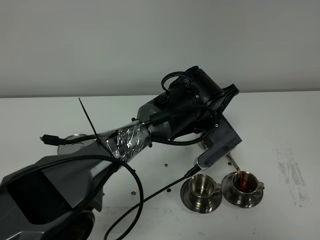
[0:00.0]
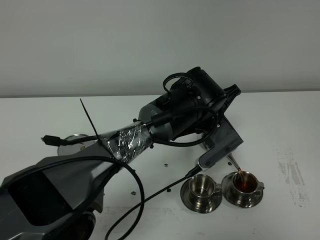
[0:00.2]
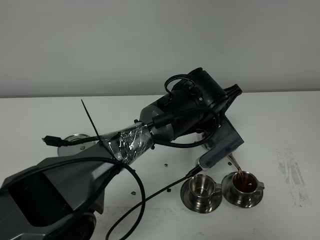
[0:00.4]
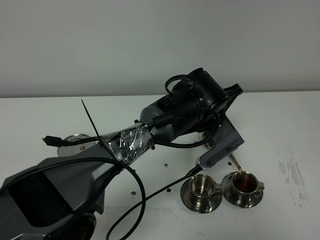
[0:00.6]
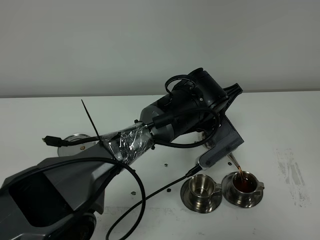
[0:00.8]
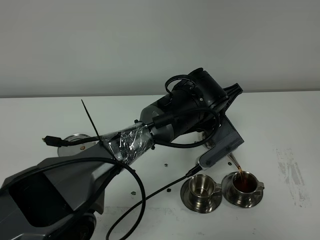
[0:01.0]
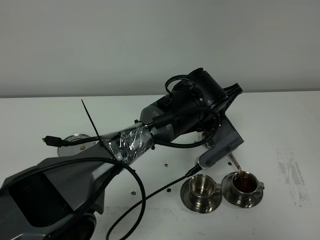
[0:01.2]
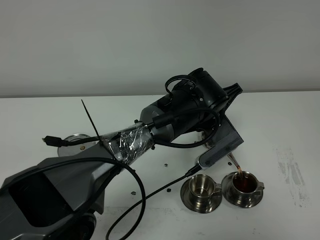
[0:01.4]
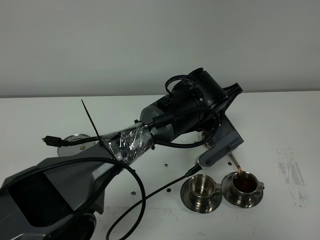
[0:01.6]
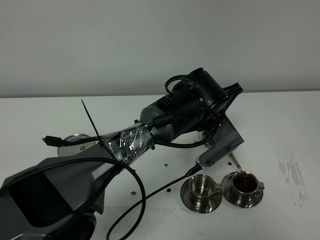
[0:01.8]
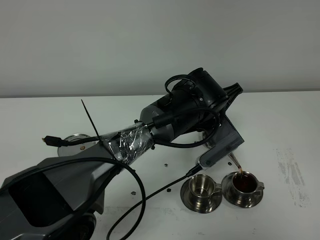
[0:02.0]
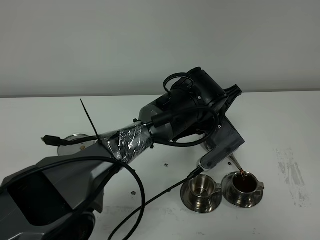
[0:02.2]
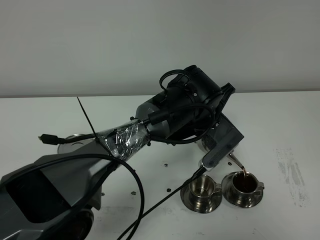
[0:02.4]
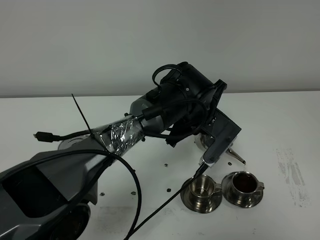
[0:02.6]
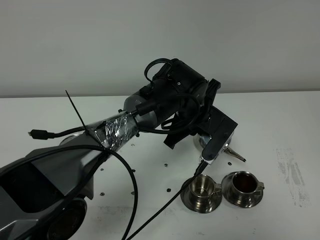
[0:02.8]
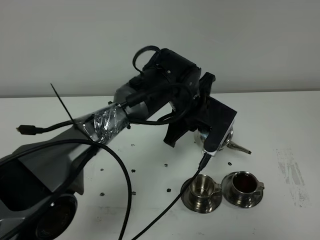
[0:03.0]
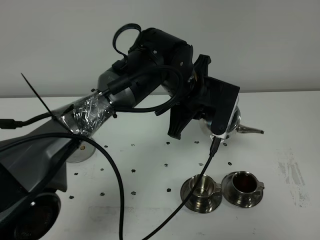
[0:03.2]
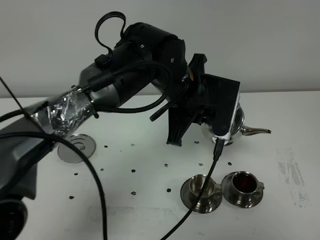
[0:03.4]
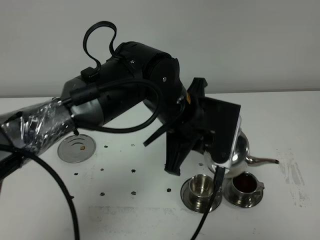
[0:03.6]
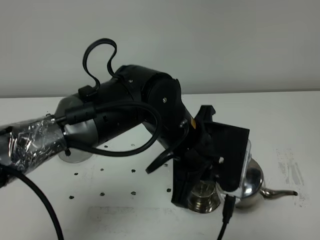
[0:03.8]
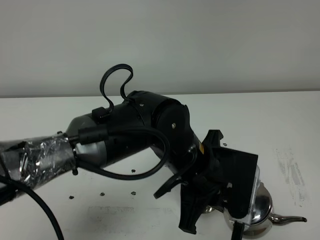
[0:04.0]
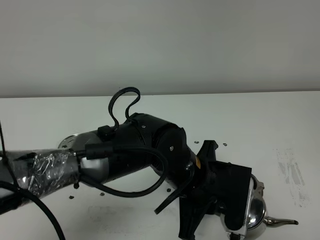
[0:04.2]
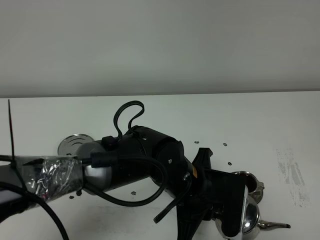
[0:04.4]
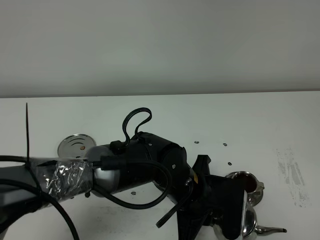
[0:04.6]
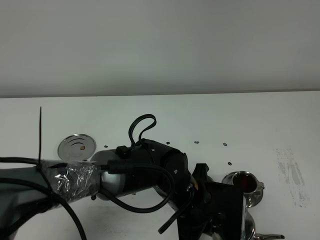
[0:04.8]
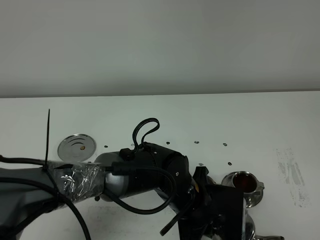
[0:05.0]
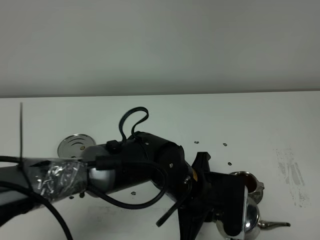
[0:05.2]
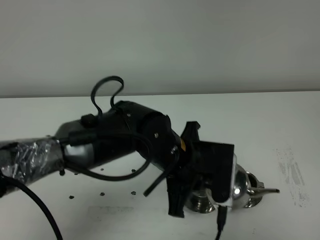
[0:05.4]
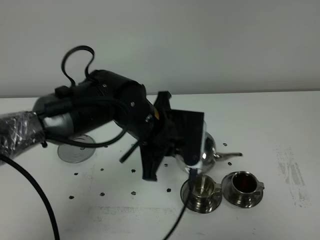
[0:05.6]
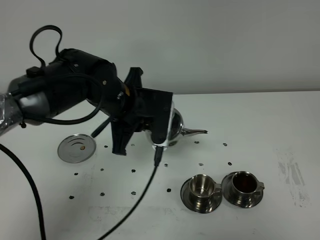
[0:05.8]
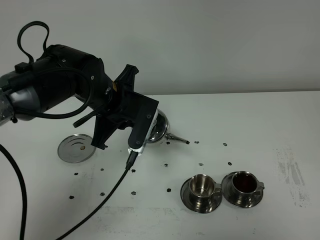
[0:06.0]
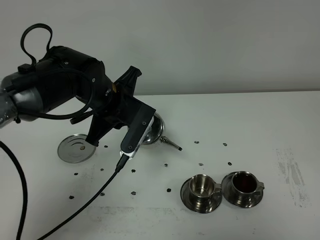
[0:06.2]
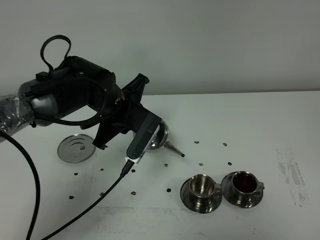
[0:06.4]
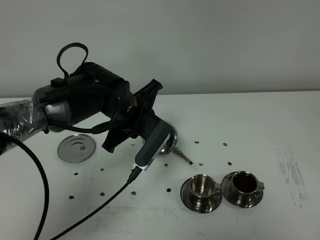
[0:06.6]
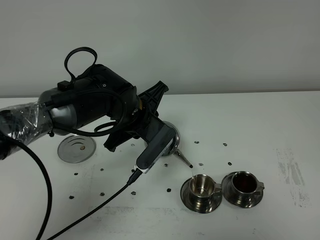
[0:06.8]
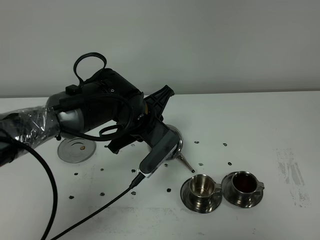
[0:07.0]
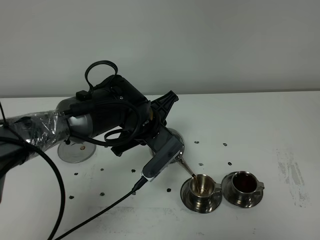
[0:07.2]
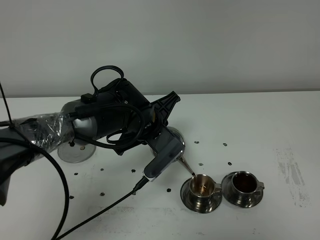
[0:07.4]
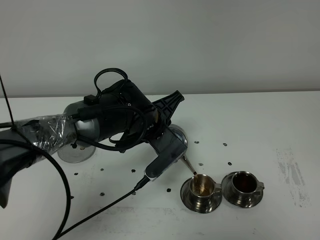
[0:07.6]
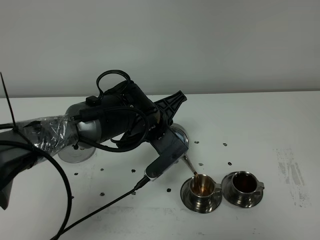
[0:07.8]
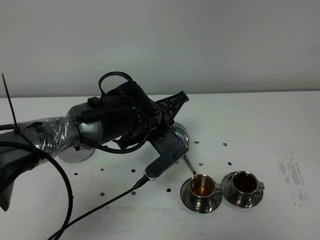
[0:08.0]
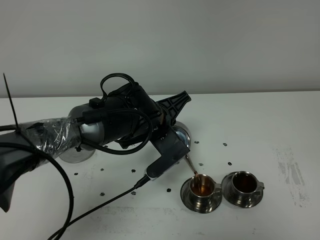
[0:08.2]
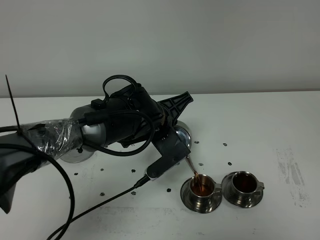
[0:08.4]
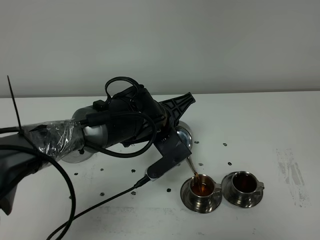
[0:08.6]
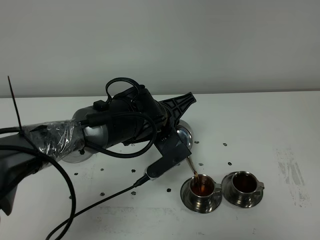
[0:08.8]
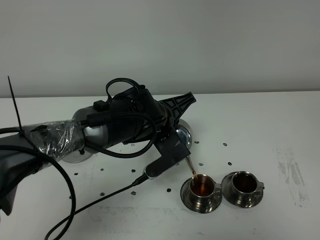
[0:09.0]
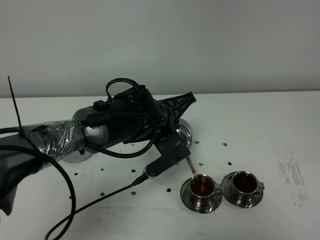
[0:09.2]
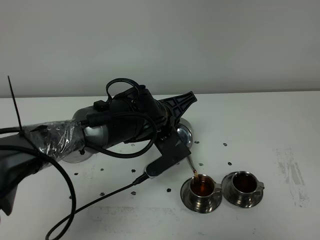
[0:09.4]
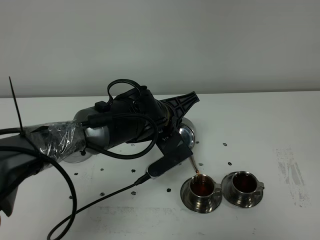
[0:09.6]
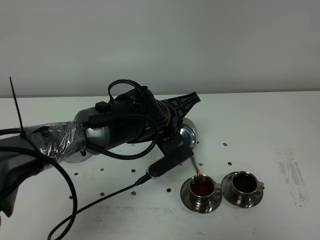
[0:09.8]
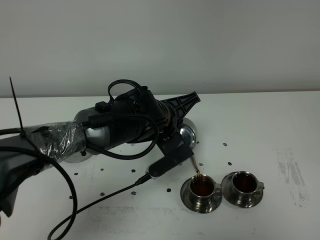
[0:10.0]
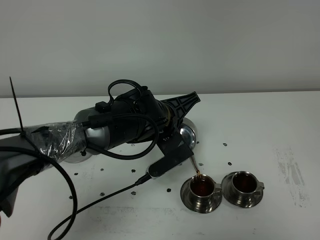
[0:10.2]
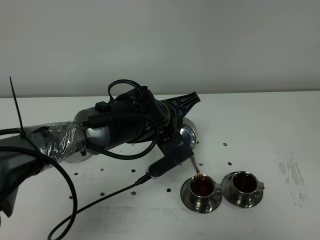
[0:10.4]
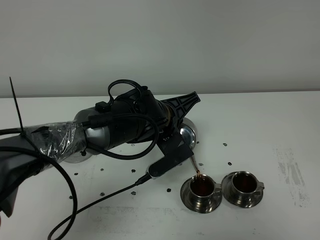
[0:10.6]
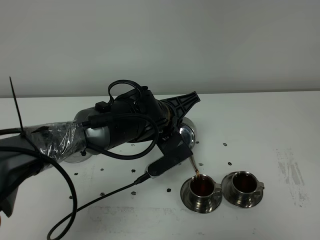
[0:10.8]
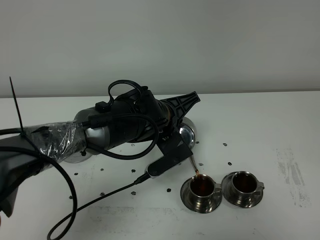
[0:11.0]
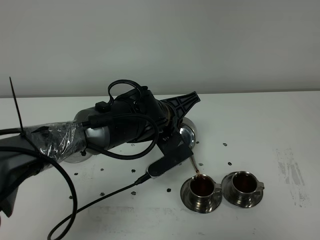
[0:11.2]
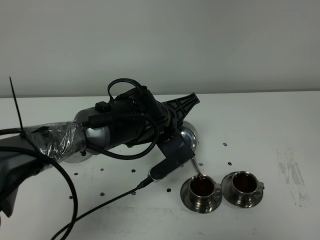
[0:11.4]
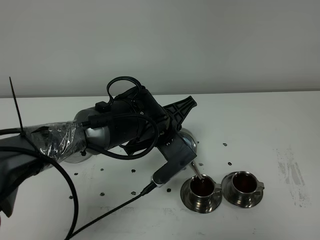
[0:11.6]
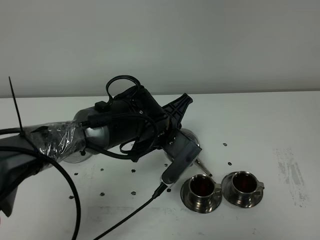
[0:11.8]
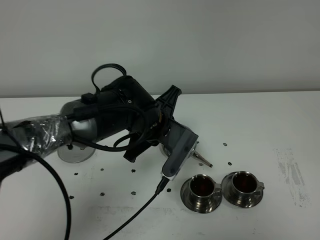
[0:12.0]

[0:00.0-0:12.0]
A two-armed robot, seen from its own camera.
Task of the whole recording: grasp the stainless steel teapot and pour the tea into the two stainless steel teacups one by one, put the stainless steel teapot back in its original place.
Step, 0:00.0 to 0:02.6: Pour tea into the teacup with the left gripper.
Step, 0:03.0 to 0:11.8: Pour tea into the teacup with the left gripper.
0:00.0 to 0:01.6: Both grippers stay about where they are.
0:03.0 to 0:04.4: The left gripper shifts approximately 15 cm backward.
0:04.4 to 0:06.0: The left gripper moves to the left, forward and upward, roughly 20 cm.
0:06.0 to 0:07.6: The left gripper is displaced to the right and downward by approximately 10 cm.
0:07.6 to 0:09.0: The grippers make only small movements.
0:09.0 to 0:10.4: Neither gripper changes place.

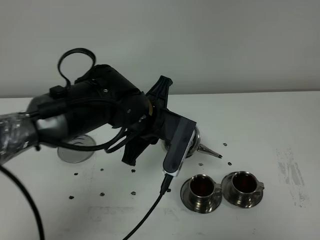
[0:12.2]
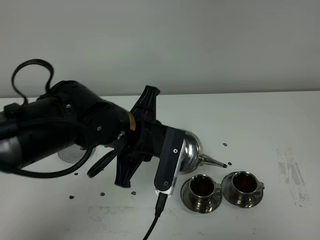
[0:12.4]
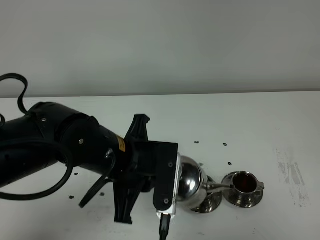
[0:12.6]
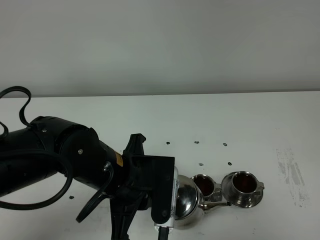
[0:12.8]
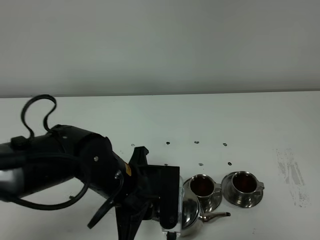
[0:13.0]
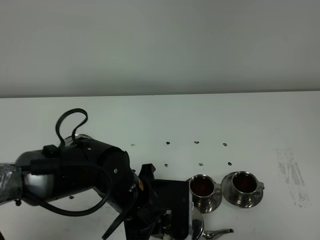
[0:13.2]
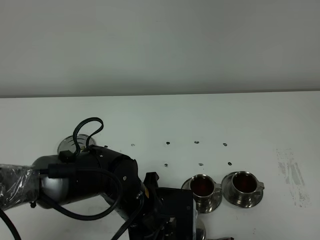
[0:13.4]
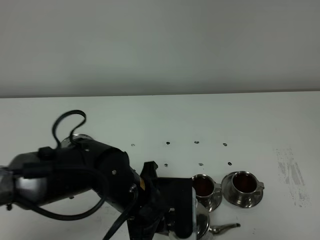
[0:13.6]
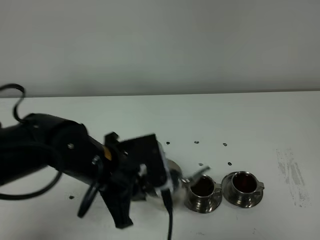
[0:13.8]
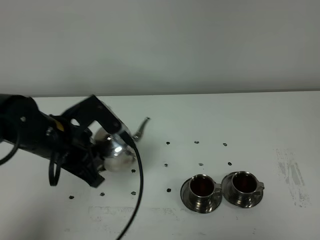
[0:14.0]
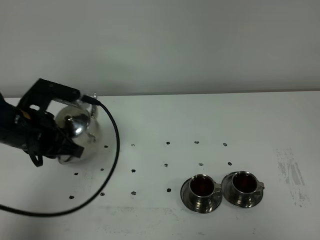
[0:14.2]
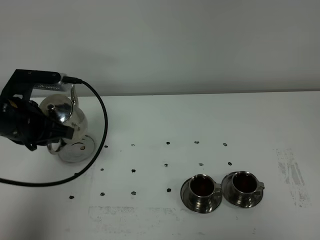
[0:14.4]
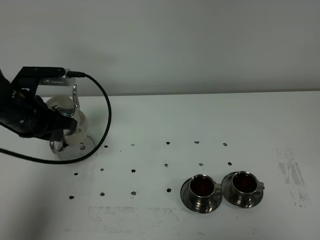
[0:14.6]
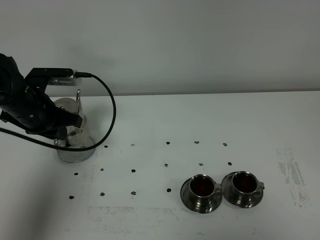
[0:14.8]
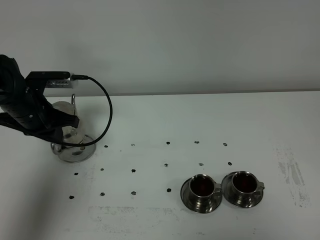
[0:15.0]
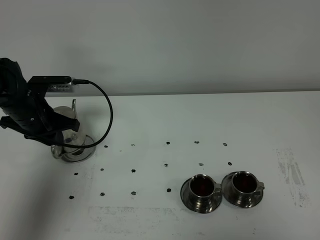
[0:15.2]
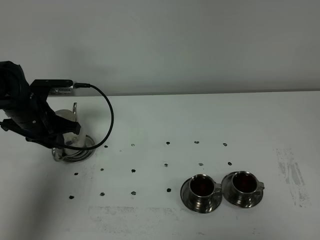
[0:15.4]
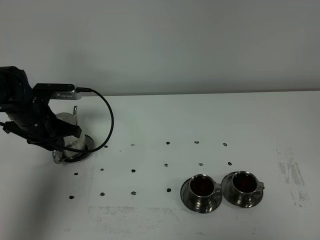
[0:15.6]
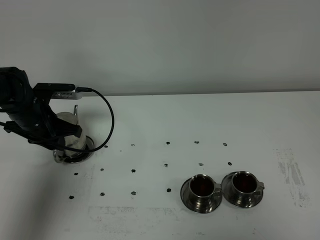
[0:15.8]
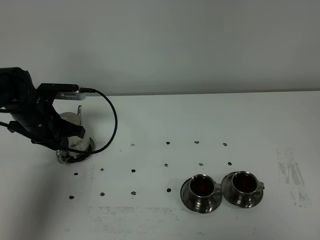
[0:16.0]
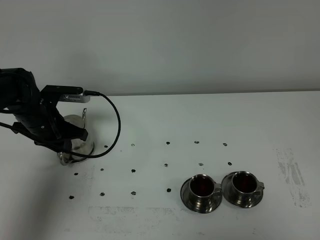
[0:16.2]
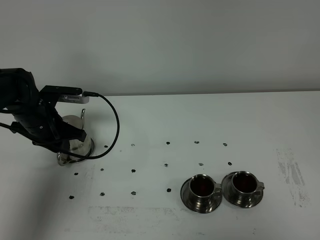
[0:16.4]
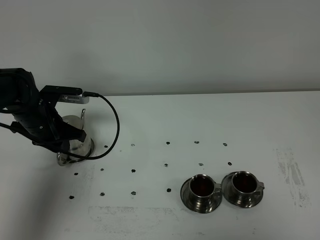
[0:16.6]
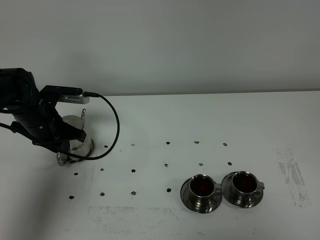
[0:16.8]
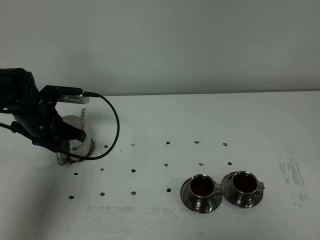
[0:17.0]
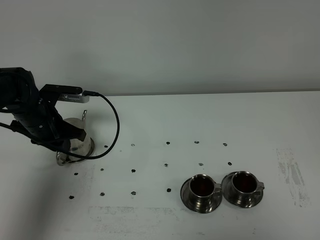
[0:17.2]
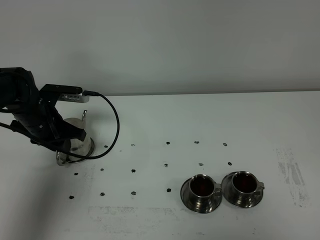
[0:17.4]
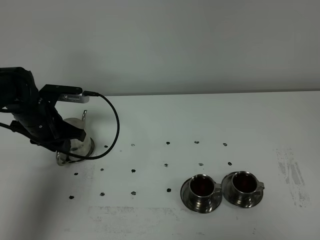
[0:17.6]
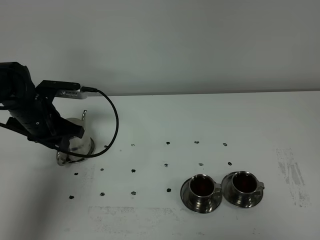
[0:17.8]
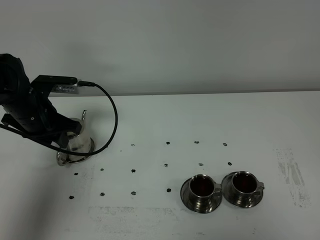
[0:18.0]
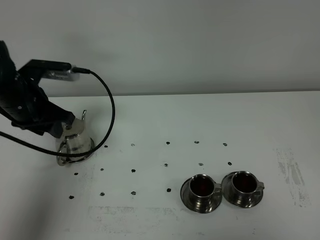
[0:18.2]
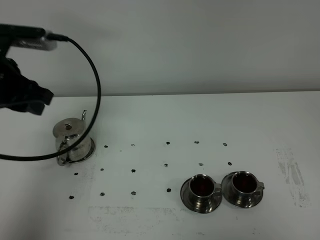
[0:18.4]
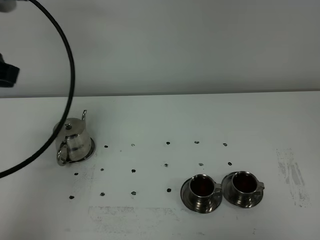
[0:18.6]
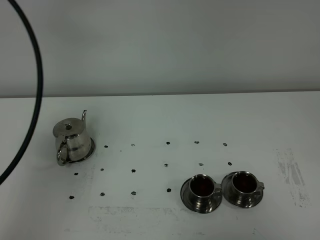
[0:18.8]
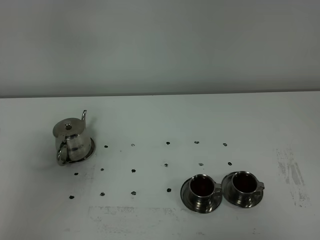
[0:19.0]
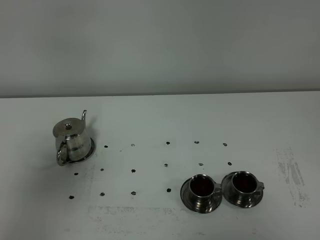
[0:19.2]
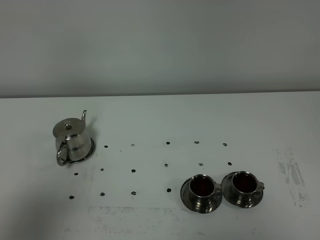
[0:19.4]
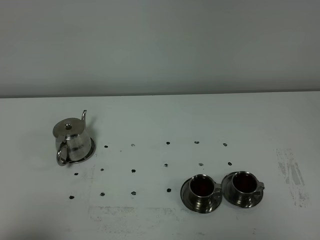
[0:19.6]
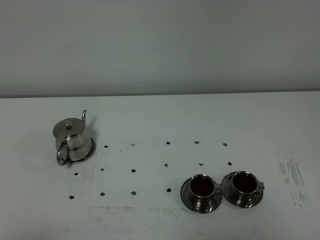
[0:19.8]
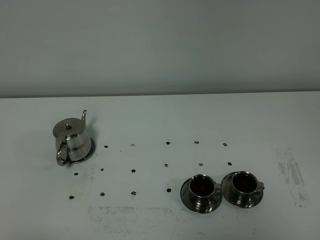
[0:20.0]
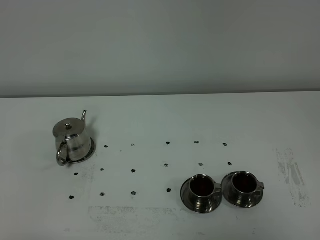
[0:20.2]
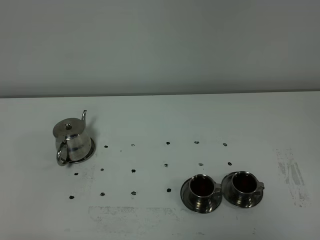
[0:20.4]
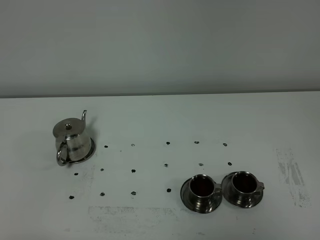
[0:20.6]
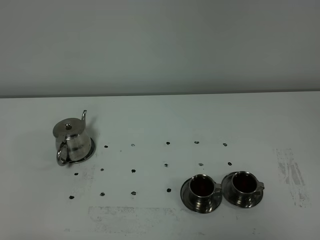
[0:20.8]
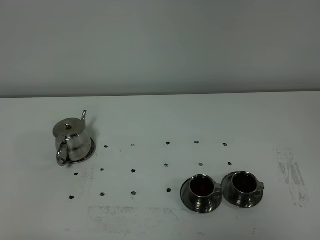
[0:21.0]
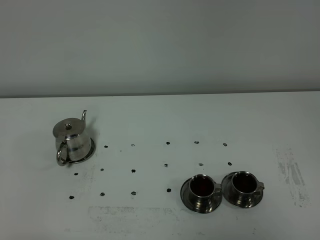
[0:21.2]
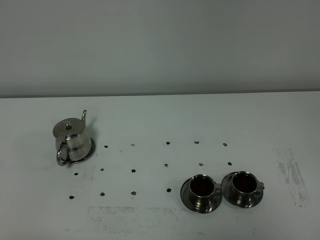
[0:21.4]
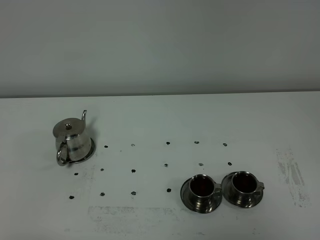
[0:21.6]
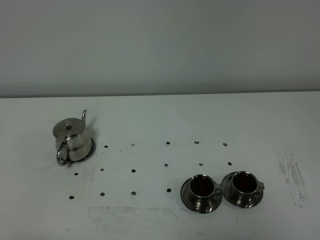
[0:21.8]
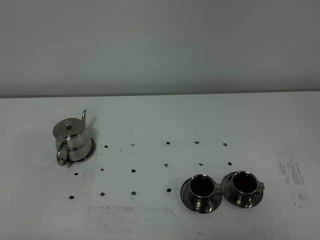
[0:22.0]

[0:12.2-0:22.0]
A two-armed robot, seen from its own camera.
Task of the whole recording: grasp the stainless steel teapot and pour the tea into the two stainless steel teacups one by one, put the stainless steel teapot back in its original place.
0:12.2 to 0:13.6: The left gripper heads backward and downward, covering about 10 cm.
0:13.6 to 0:15.0: The left gripper heads to the left and forward, covering roughly 30 cm.
0:15.0 to 0:16.4: There are only small adjustments of the grippers.
0:16.4 to 0:17.8: The left gripper opens its fingers.
0:17.8 to 0:19.2: The left gripper goes approximately 40 cm backward and upward.
0:19.2 to 0:20.6: The left gripper shifts roughly 25 cm downward and backward.
0:20.6 to 0:22.0: Both grippers stay about where they are.
